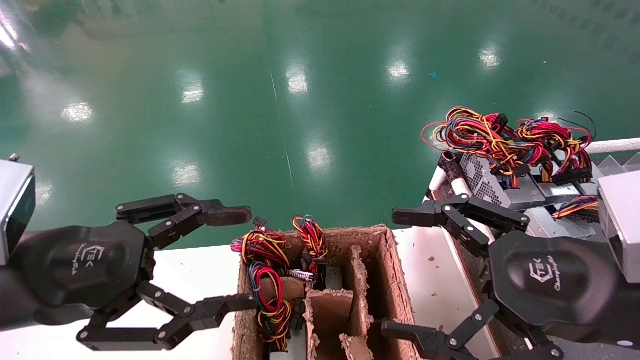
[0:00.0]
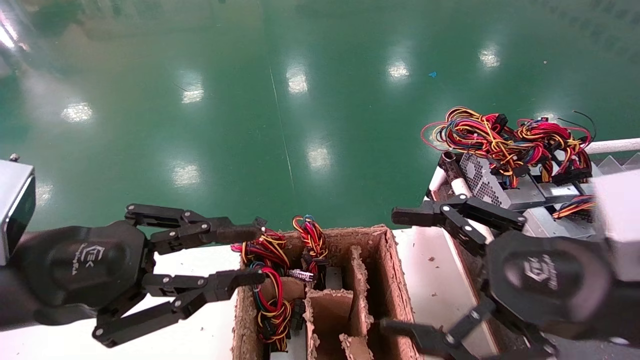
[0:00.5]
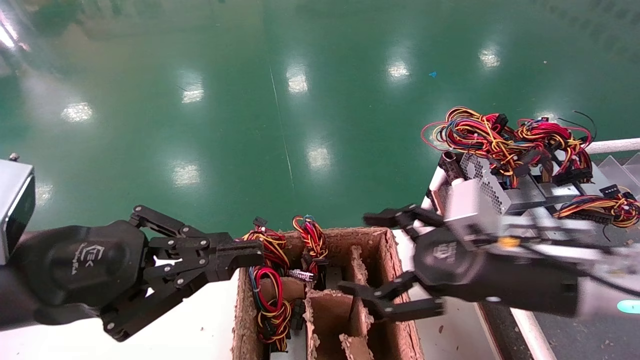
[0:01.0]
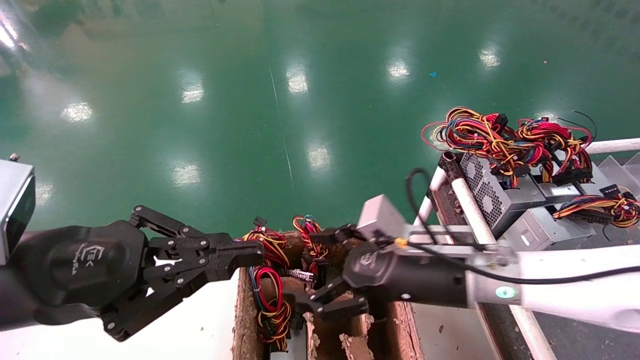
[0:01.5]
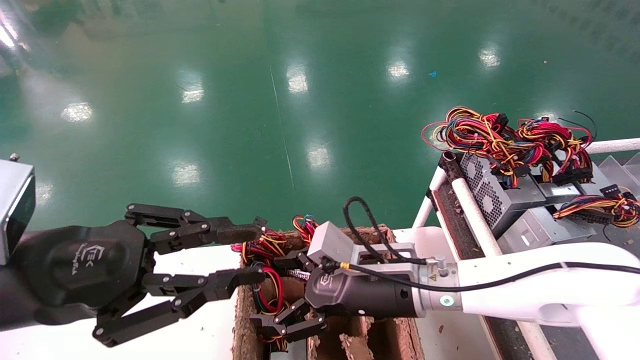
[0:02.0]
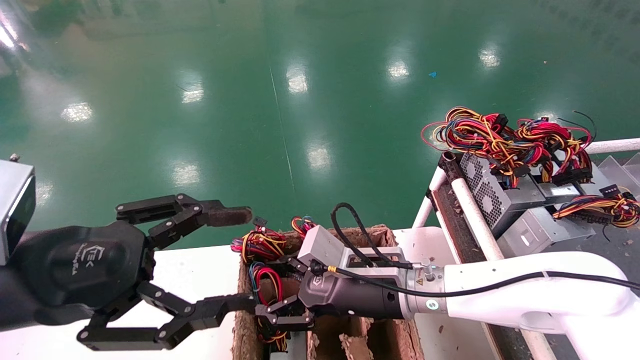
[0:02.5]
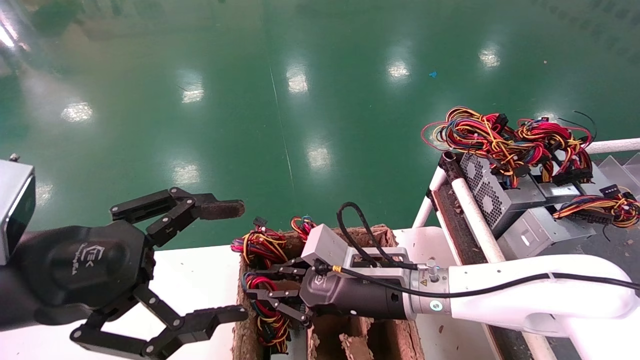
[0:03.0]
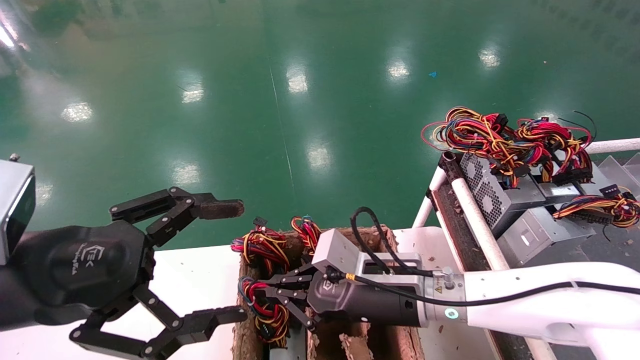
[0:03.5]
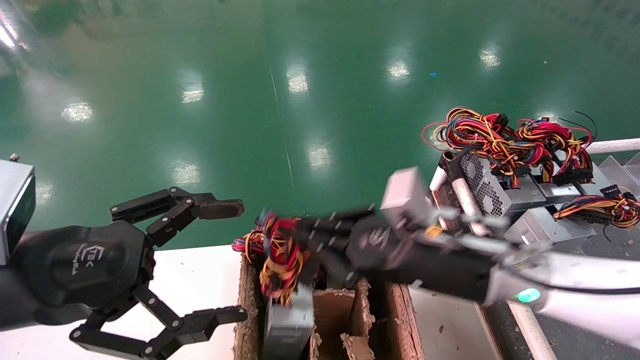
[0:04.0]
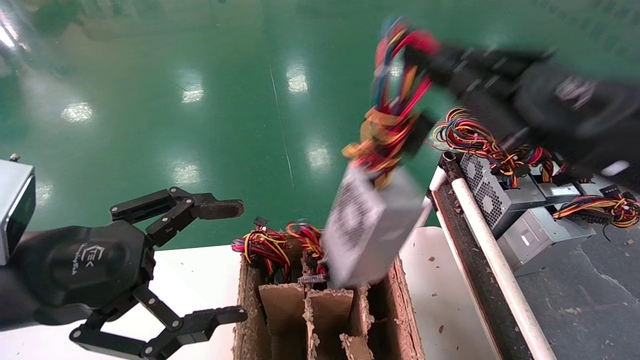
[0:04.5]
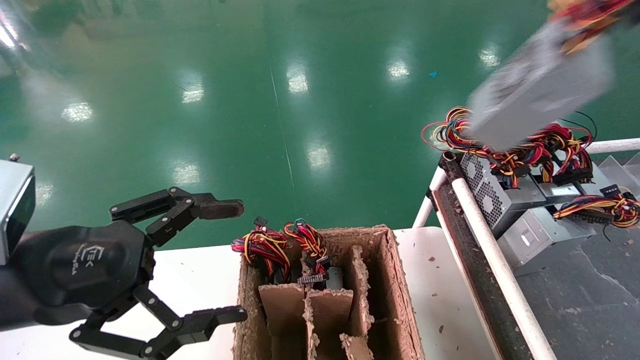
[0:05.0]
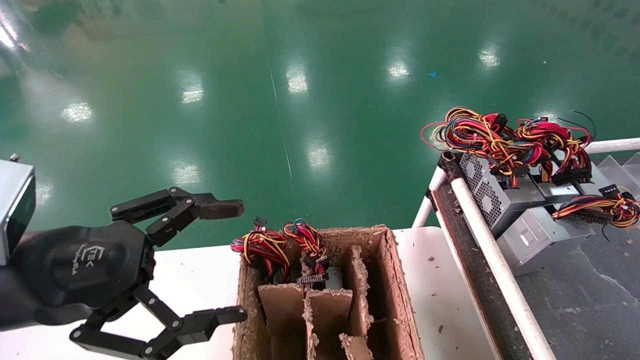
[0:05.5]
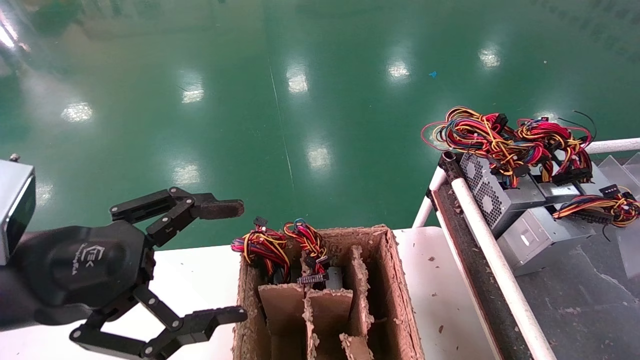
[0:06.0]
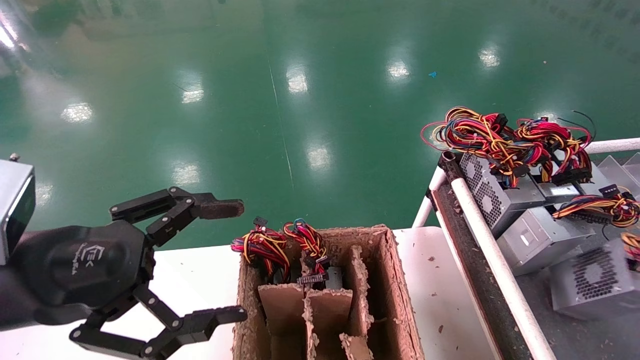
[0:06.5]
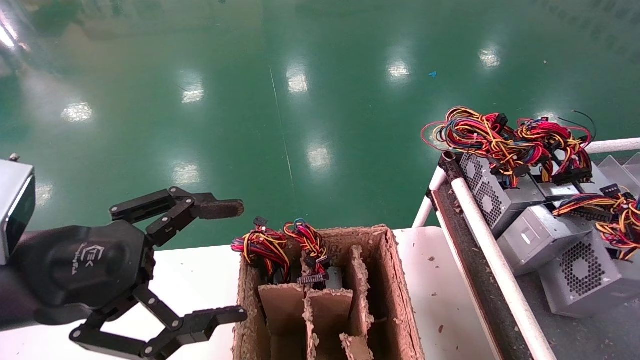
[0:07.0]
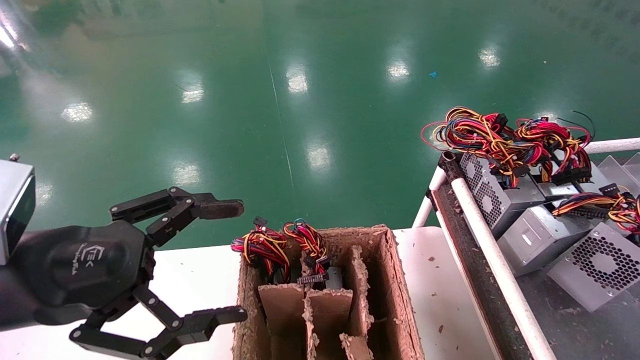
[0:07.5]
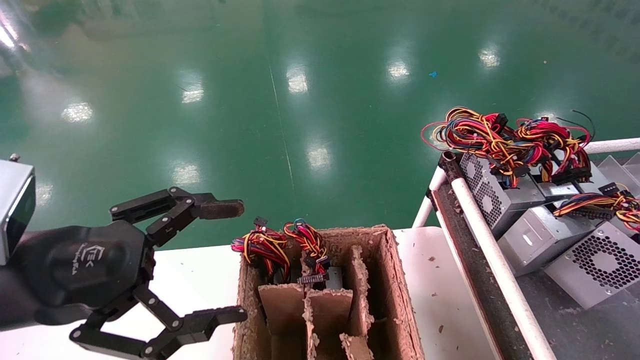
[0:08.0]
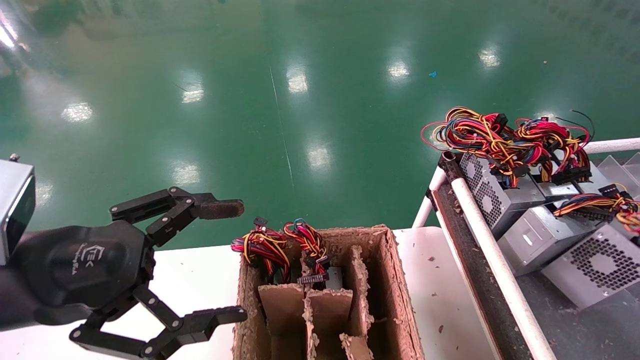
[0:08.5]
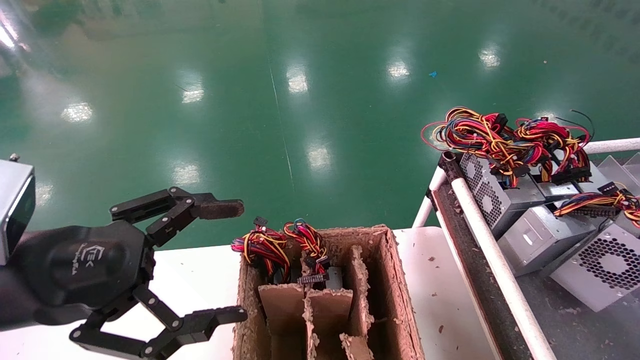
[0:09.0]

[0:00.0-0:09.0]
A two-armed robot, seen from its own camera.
Step, 0:01.0 to 0:03.0: Grab and lift the power supply from the large box.
0:00.0 to 0:02.0: The right gripper goes about 25 cm to the left, forward and downward. Meanwhile the left gripper closes up.
0:02.0 to 0:04.5: The left gripper opens its fingers; the right gripper travels upward, to the right and backward by some 30 cm, and closes.
0:04.5 to 0:07.0: The right gripper shifts some 25 cm to the right.
0:07.0 to 0:09.0: There are only small adjustments of the grippers.

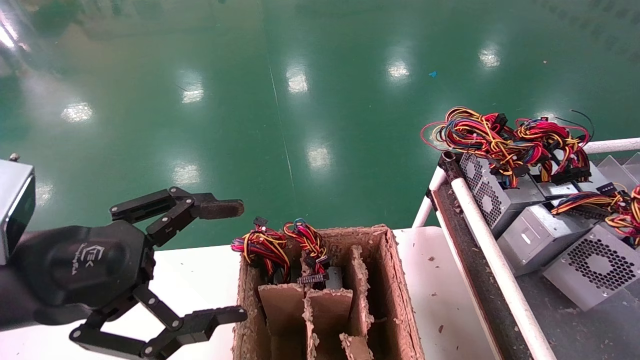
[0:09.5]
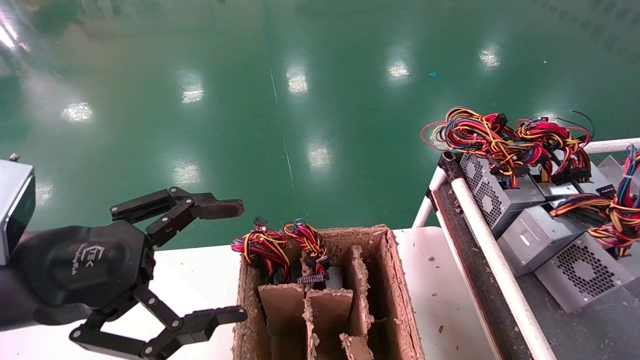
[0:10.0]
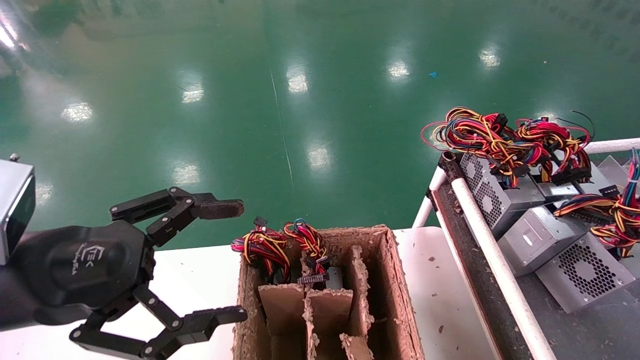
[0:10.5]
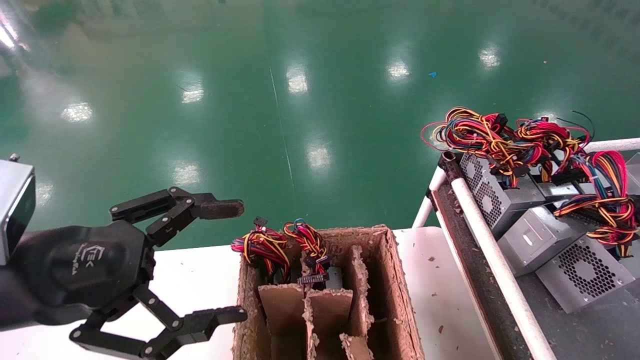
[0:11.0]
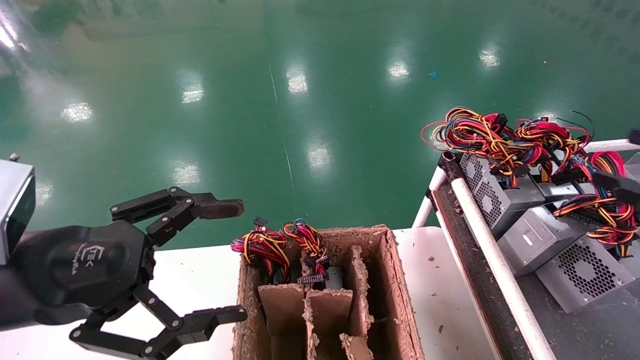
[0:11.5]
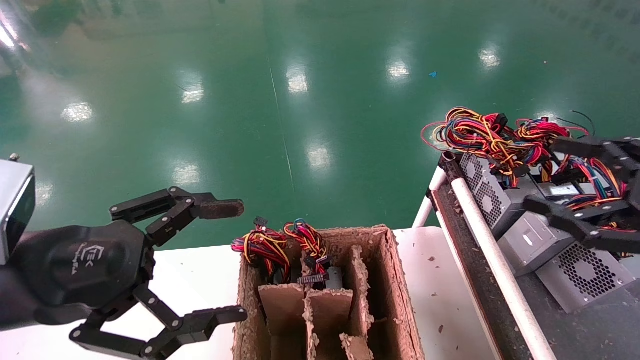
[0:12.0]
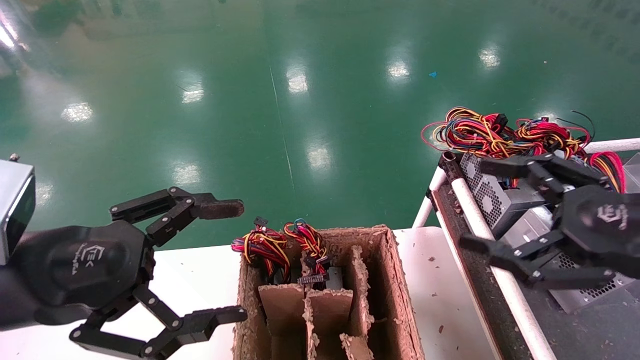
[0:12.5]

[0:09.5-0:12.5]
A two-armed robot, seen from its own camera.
0:09.5 to 0:11.0: The grippers move only a little.
0:11.0 to 0:12.5: The right gripper heads to the left, covering approximately 15 cm, and opens its fingers.

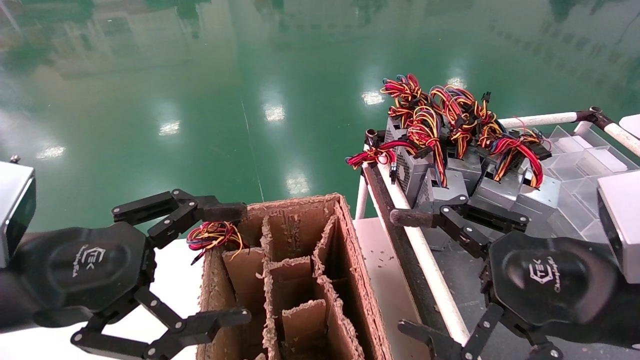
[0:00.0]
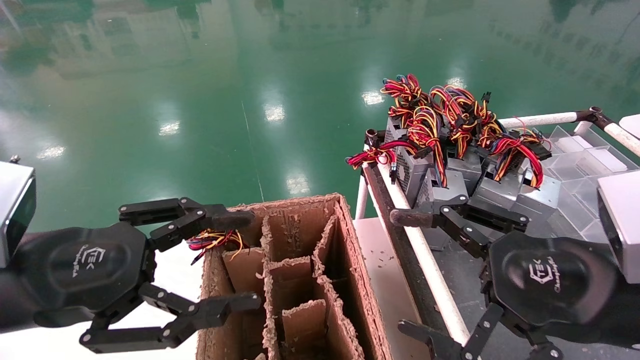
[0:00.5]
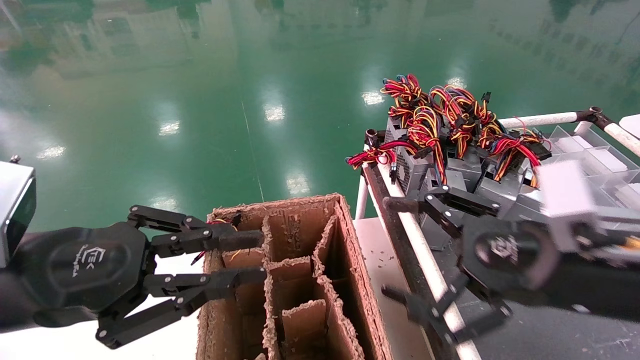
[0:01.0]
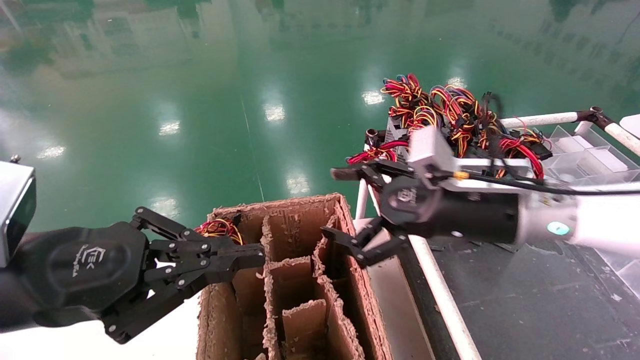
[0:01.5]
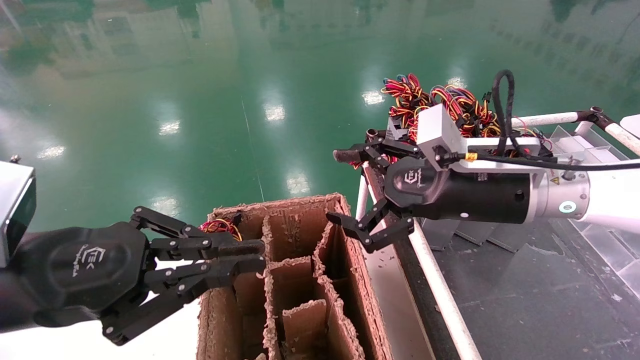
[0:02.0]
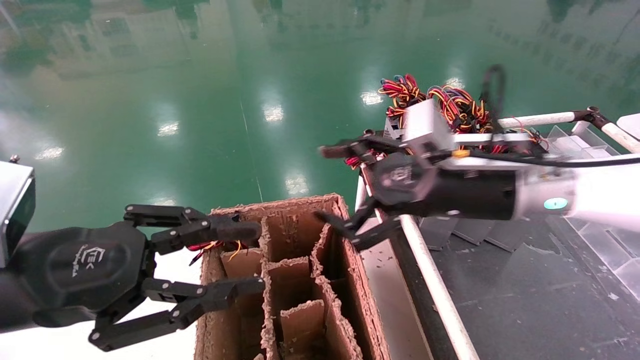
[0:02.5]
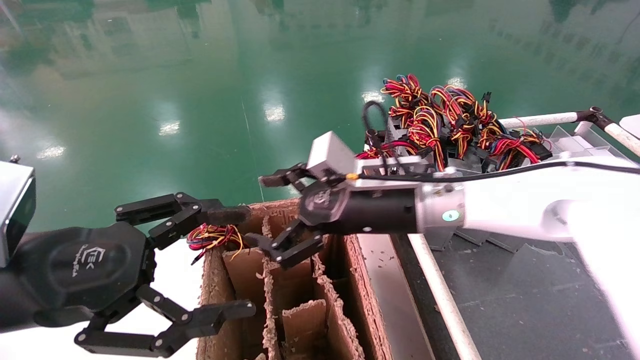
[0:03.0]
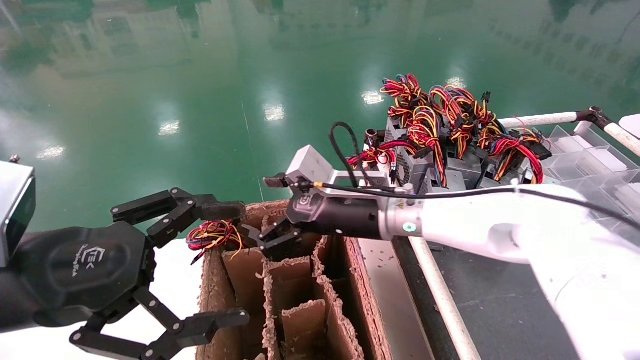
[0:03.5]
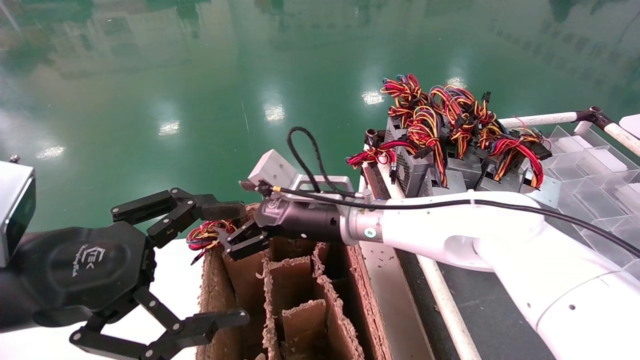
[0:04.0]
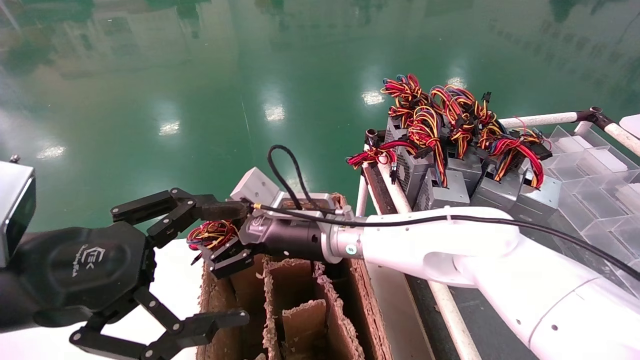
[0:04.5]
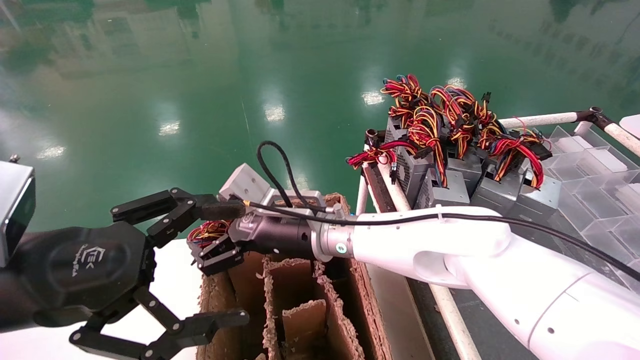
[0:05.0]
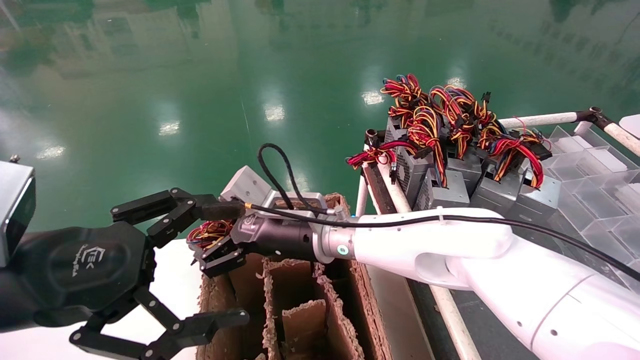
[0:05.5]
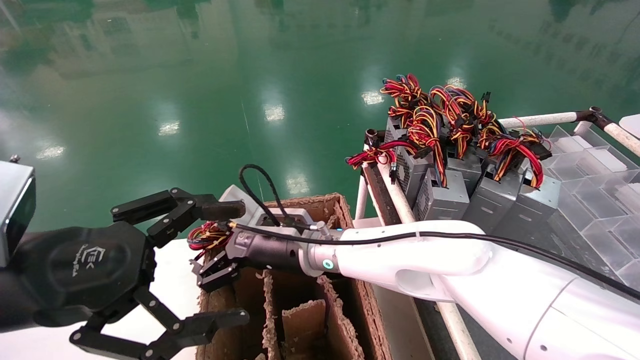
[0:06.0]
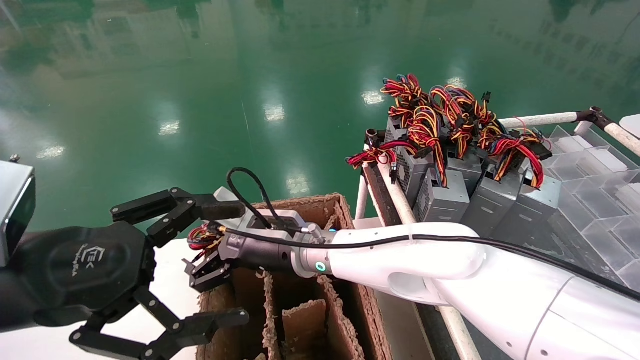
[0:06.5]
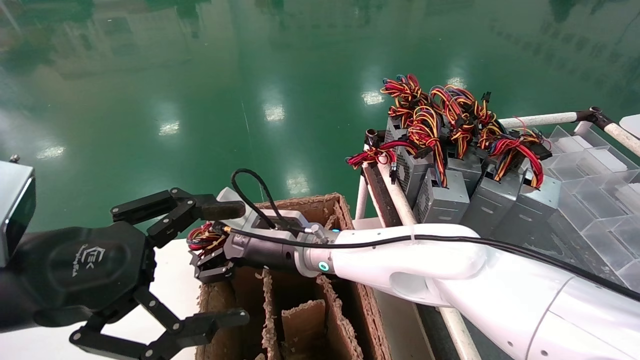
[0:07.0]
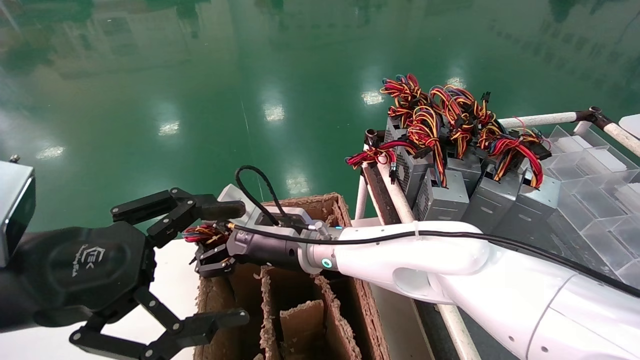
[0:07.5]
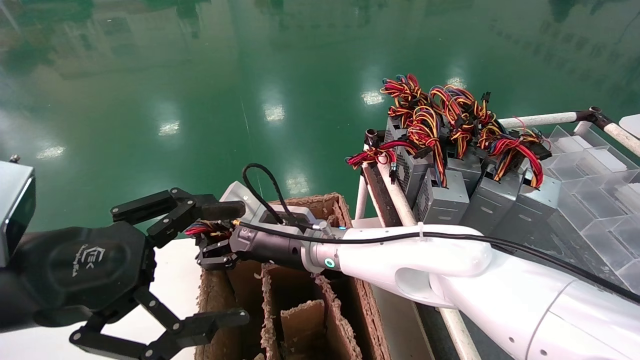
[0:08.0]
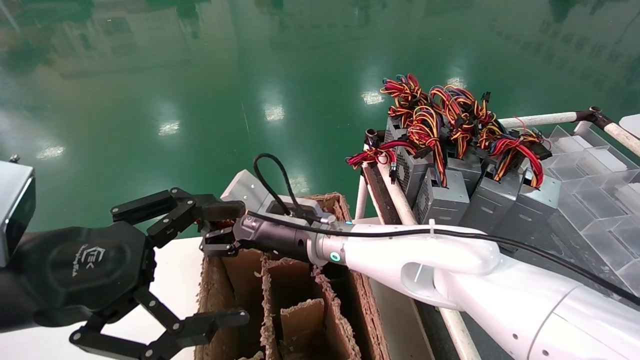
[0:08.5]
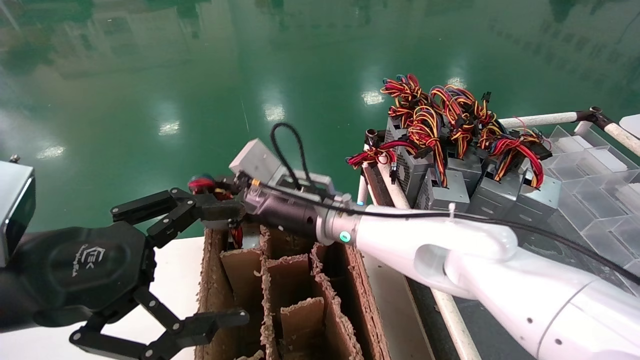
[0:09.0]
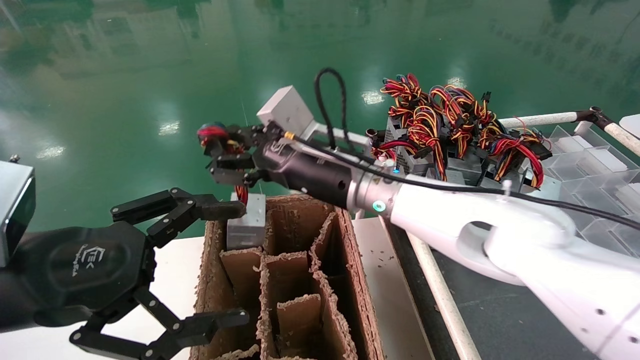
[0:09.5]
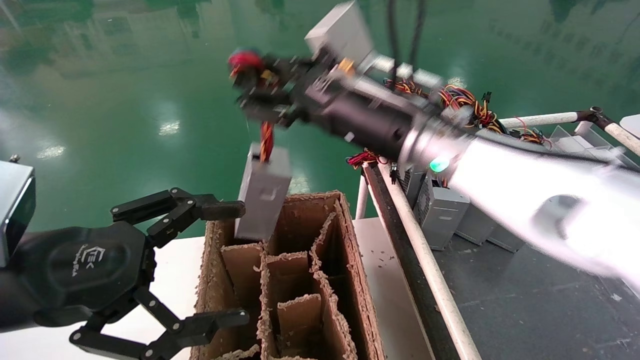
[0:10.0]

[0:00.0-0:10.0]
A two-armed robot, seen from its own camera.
Step, 0:02.0 to 0:08.5: Grab and lift the power supply from the large box.
0:00.0 to 0:02.0: The left gripper closes, while the right gripper heads forward and to the left, covering about 15 cm.
0:02.0 to 0:04.0: The right gripper travels to the left by some 20 cm; the left gripper opens up.
0:04.0 to 0:06.0: The right gripper heads to the left, covering some 5 cm.
0:06.0 to 0:08.0: The right gripper closes.
0:08.0 to 0:10.0: The right gripper is displaced upward and to the right by some 20 cm.
